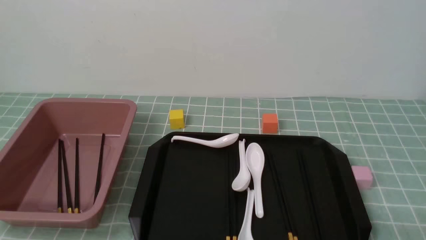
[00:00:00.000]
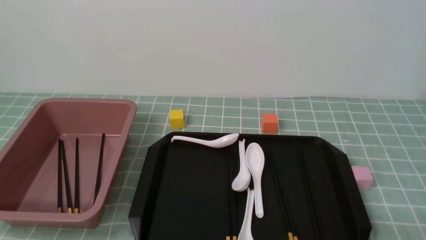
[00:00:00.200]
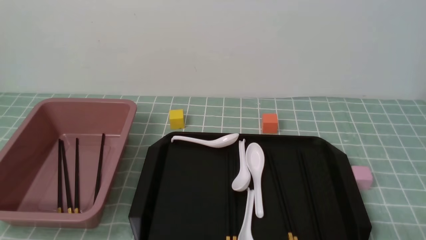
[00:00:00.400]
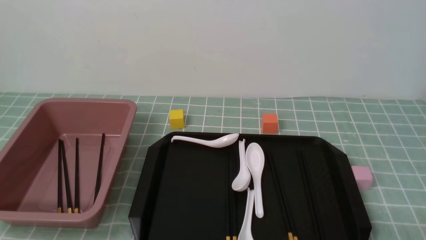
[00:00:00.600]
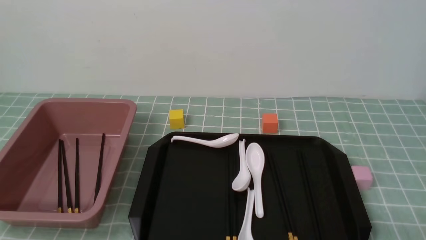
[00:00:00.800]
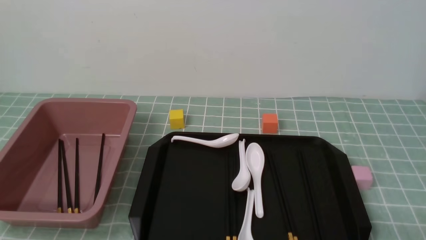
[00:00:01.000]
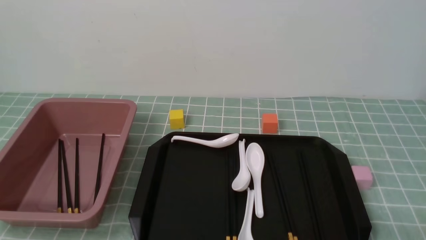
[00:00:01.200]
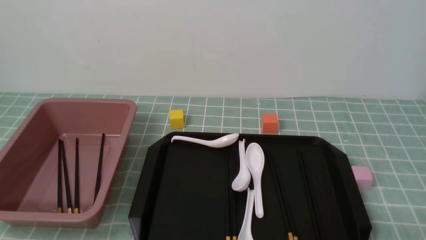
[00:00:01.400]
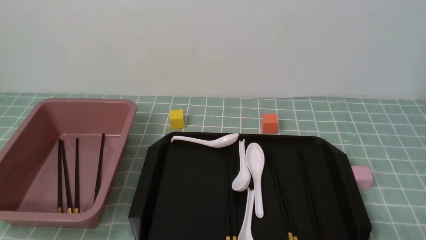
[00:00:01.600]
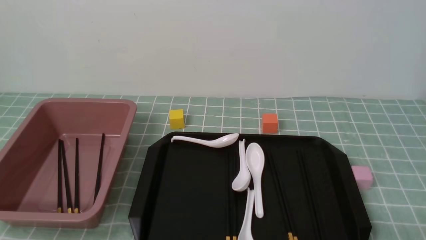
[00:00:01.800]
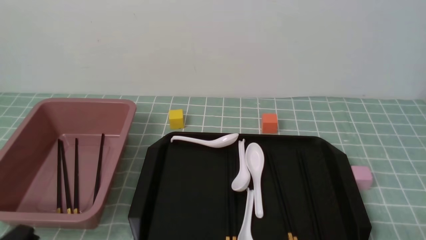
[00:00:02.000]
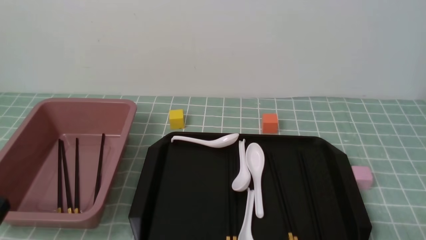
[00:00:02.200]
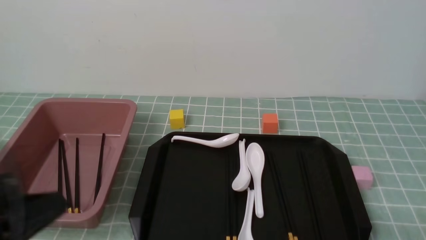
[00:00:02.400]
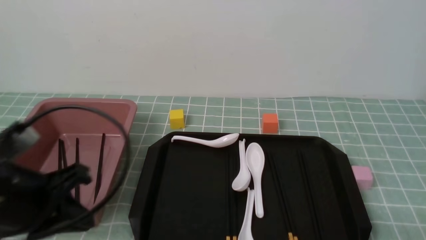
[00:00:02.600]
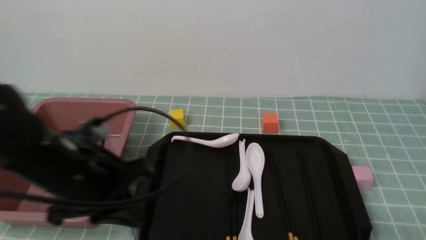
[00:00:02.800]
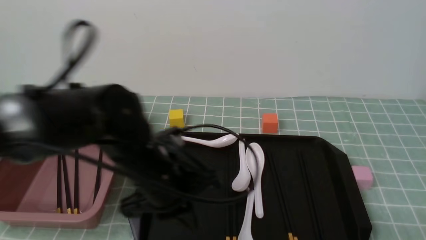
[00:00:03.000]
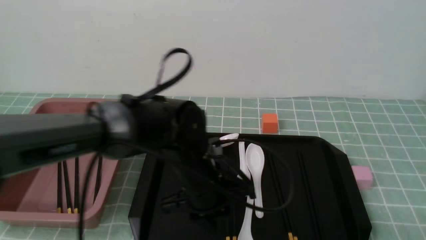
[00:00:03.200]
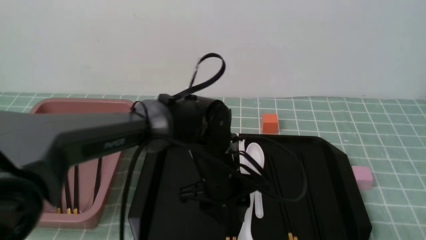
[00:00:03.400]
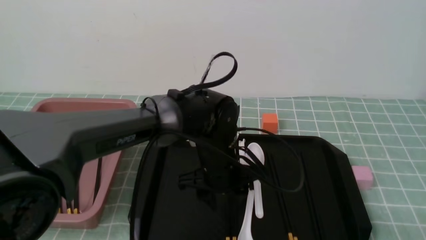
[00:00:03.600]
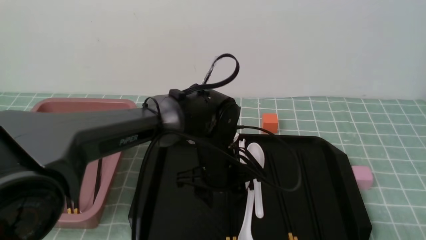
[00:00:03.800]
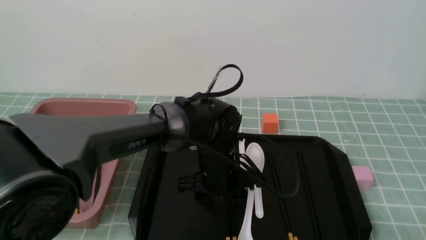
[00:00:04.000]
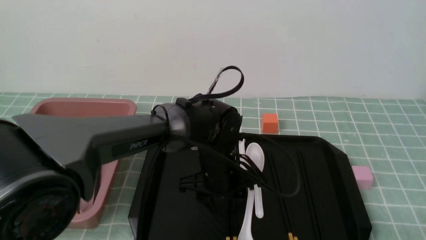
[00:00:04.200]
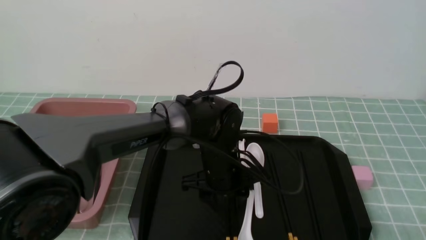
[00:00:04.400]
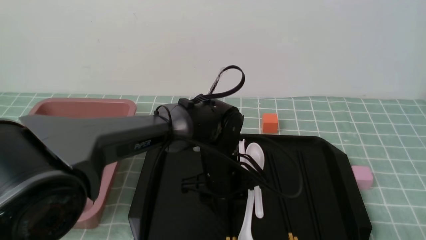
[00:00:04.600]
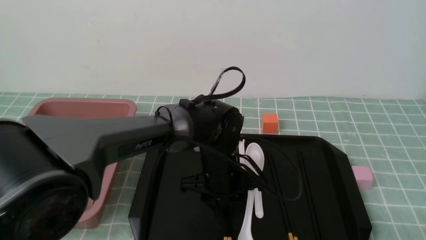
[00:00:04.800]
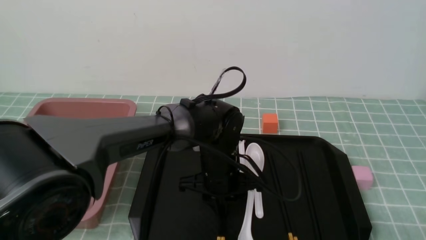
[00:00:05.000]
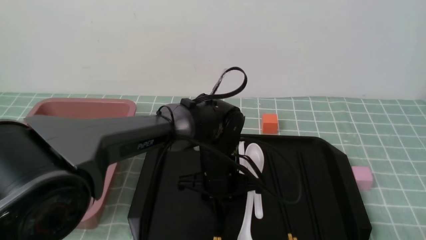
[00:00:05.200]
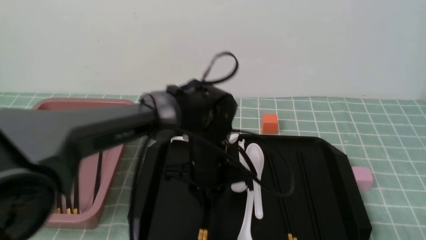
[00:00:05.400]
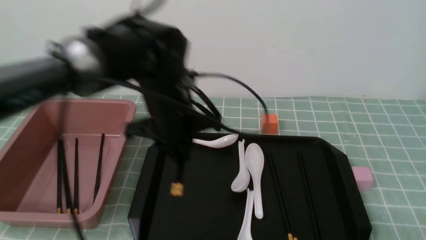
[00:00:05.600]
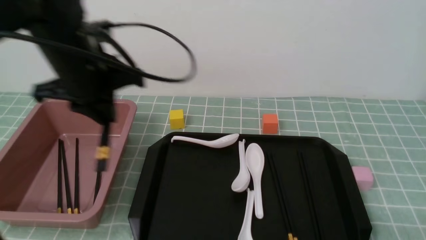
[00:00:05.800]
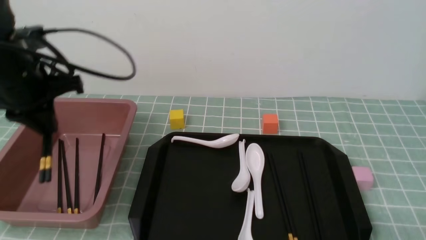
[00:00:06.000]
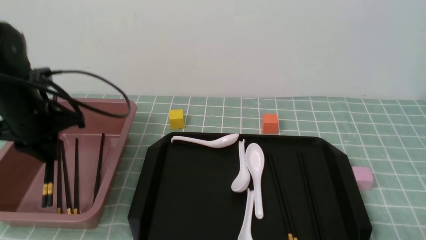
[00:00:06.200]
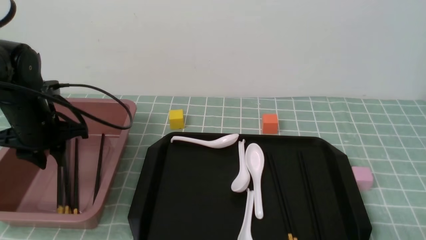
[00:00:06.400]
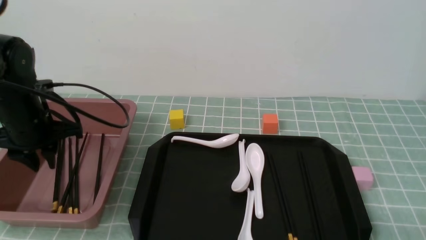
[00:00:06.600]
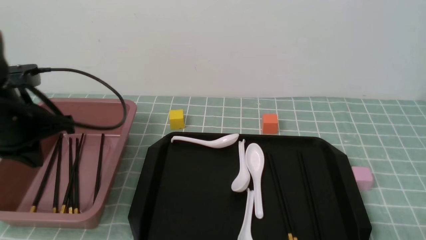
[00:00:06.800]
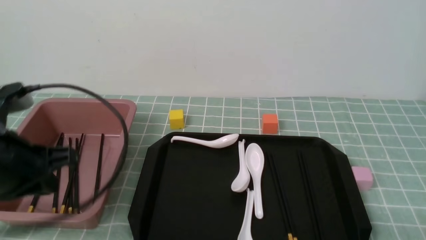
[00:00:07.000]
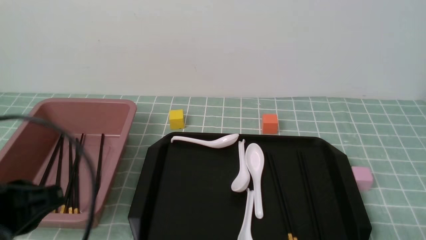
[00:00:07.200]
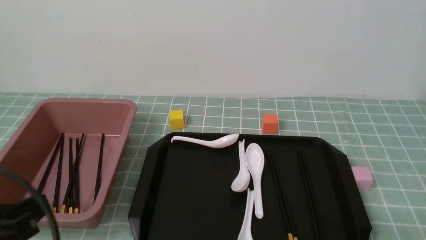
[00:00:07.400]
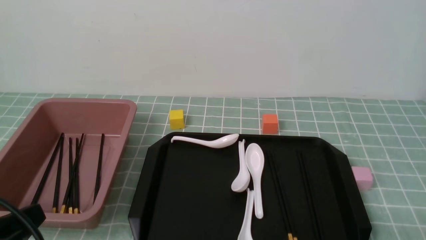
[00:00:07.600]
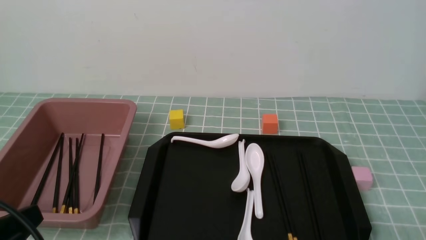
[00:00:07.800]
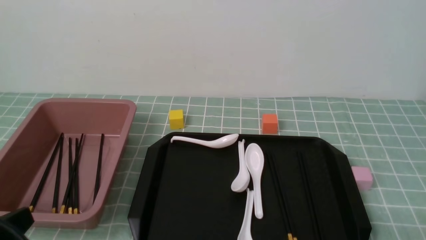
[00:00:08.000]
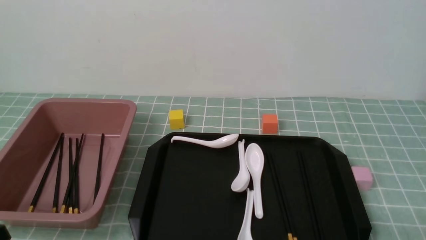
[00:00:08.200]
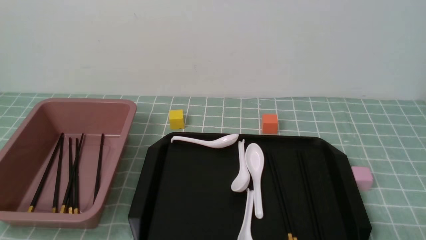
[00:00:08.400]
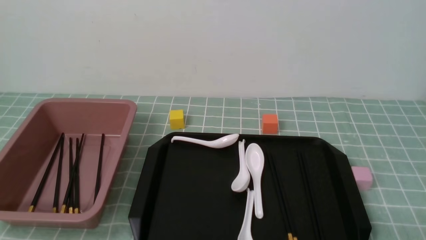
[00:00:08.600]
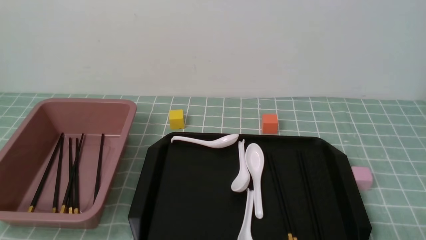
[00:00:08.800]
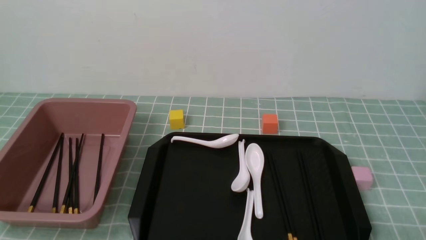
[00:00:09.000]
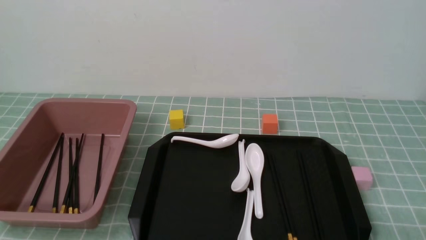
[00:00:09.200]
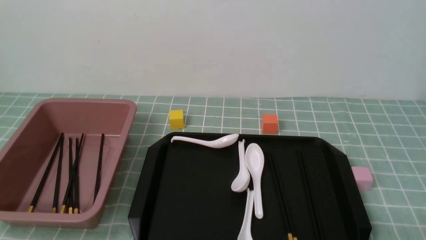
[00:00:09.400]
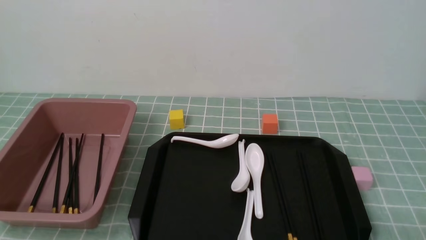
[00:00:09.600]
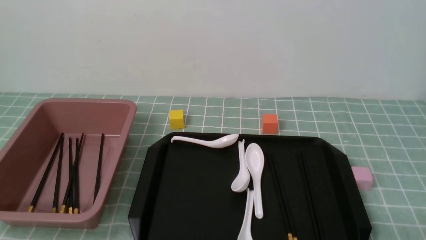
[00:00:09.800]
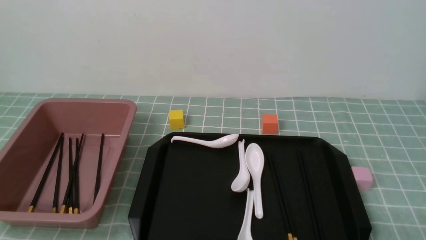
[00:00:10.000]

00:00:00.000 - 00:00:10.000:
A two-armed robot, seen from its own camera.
Step, 00:00:00.000 - 00:00:05.600: use the left arm to grab a pair of chopsticks.
Step, 00:00:05.800 - 00:00:07.000: use the left arm to put the chopsticks into the lunch box.
00:00:01.400 - 00:00:02.800: The left gripper moves forward, to the right and upward, some 25 cm.
00:00:02.800 - 00:00:04.200: The left gripper travels to the right, forward and downward by approximately 20 cm, and opens up.
00:00:04.200 - 00:00:05.800: The left gripper shifts about 25 cm to the left and upward, and closes up.
00:00:05.800 - 00:00:07.200: The left gripper shifts some 20 cm backward.
00:00:07.200 - 00:00:08.600: The left gripper moves downward and backward, approximately 15 cm.
00:00:08.600 - 00:00:10.000: The two grippers keep their place.
